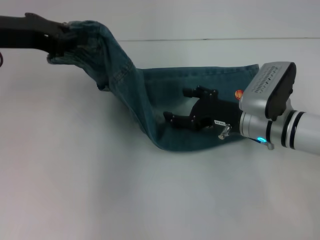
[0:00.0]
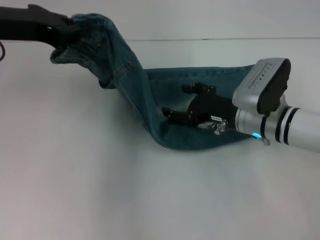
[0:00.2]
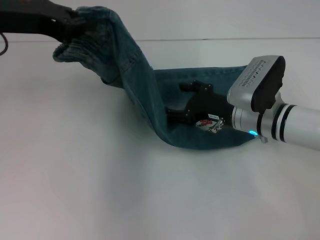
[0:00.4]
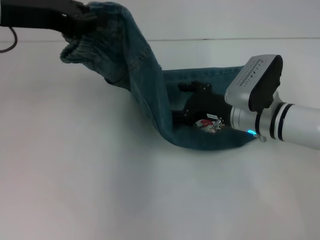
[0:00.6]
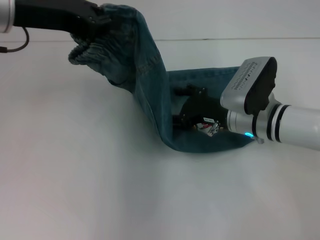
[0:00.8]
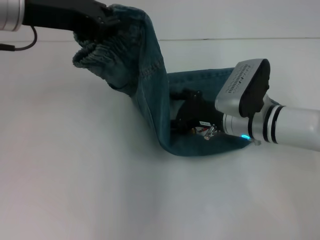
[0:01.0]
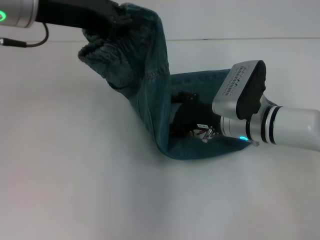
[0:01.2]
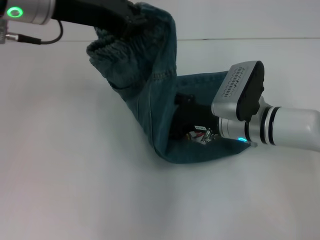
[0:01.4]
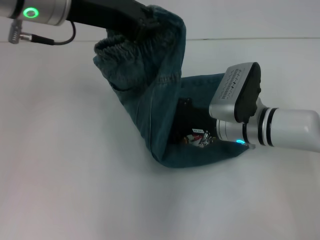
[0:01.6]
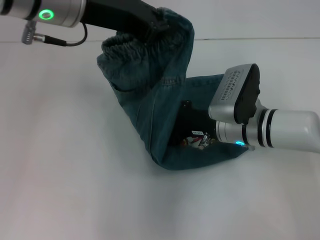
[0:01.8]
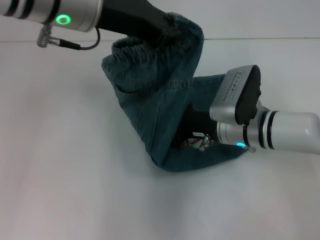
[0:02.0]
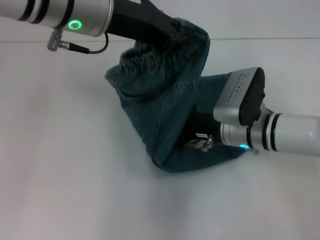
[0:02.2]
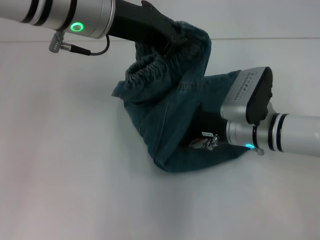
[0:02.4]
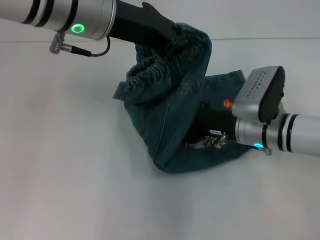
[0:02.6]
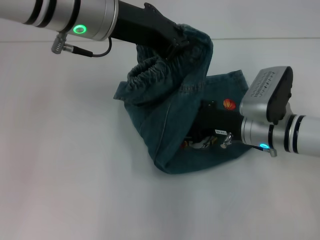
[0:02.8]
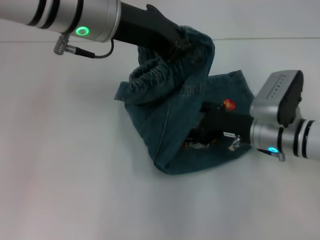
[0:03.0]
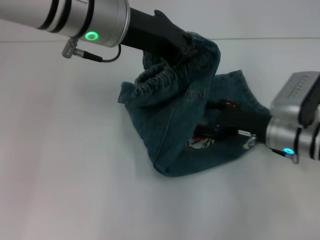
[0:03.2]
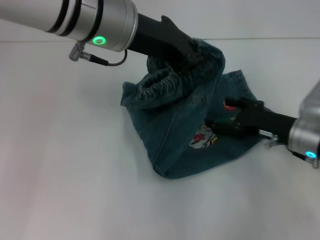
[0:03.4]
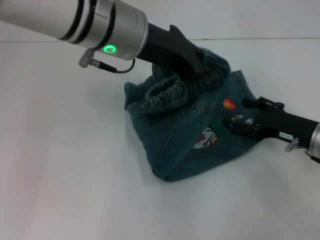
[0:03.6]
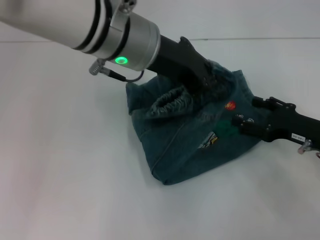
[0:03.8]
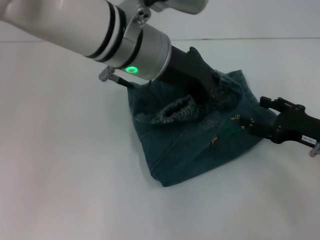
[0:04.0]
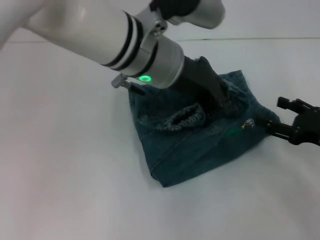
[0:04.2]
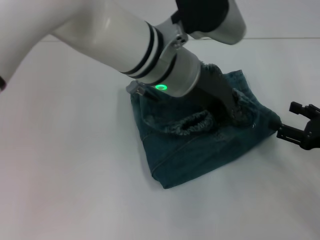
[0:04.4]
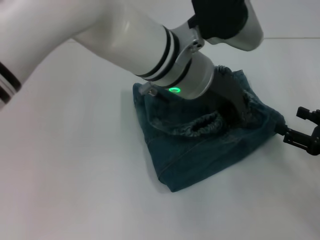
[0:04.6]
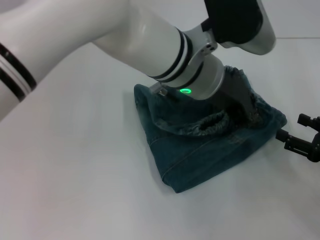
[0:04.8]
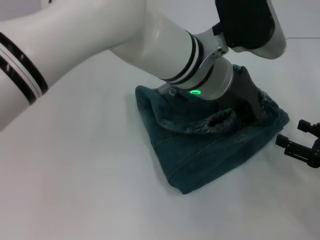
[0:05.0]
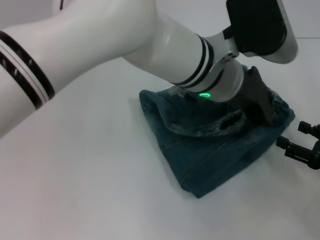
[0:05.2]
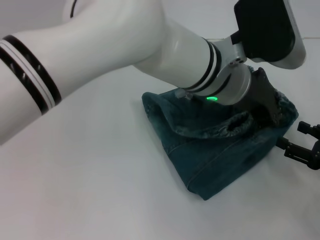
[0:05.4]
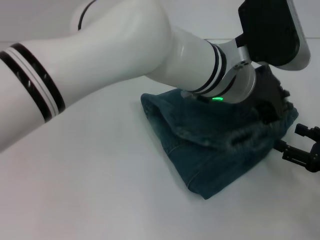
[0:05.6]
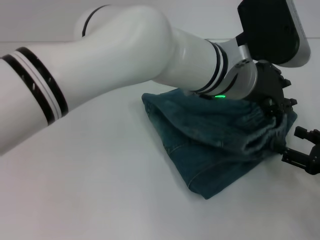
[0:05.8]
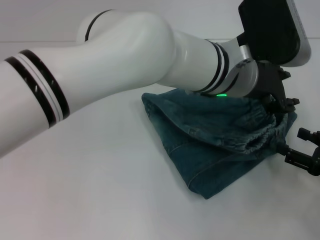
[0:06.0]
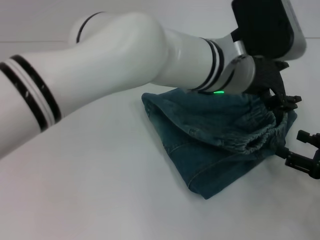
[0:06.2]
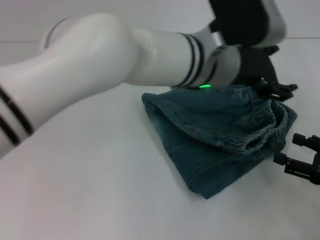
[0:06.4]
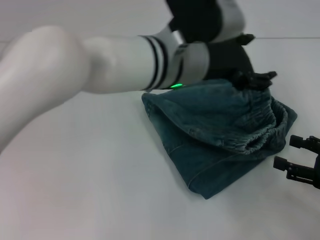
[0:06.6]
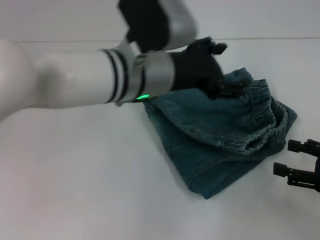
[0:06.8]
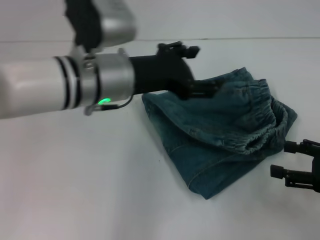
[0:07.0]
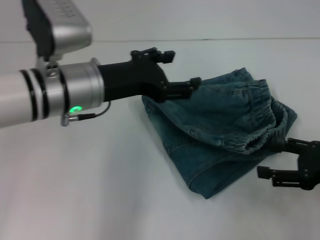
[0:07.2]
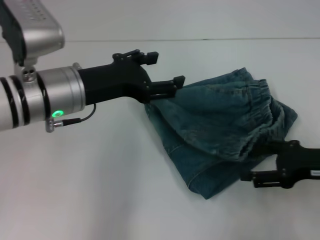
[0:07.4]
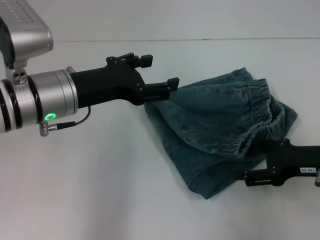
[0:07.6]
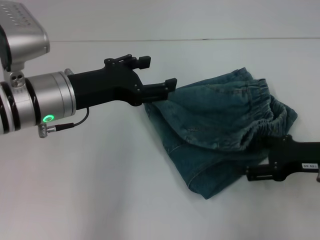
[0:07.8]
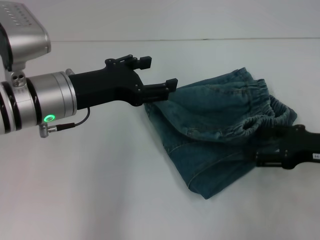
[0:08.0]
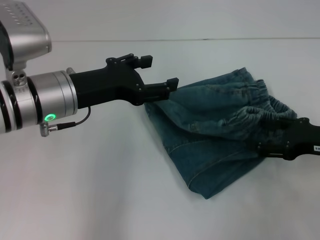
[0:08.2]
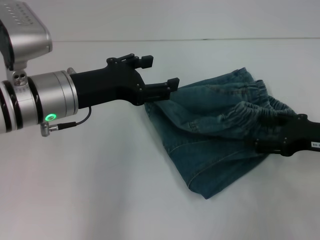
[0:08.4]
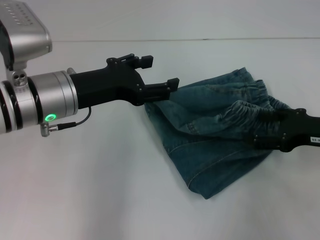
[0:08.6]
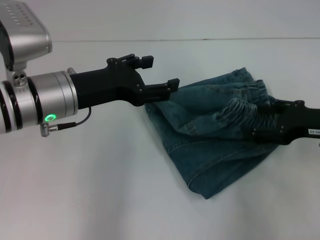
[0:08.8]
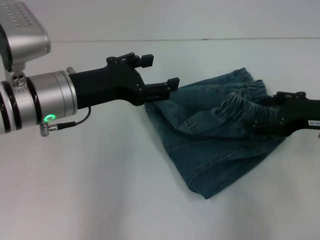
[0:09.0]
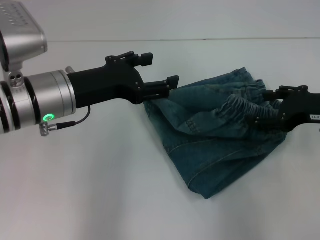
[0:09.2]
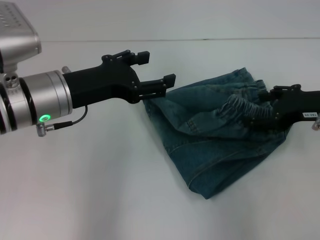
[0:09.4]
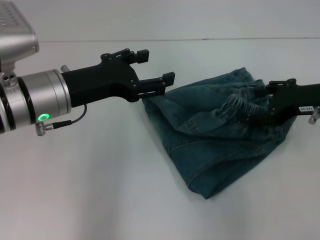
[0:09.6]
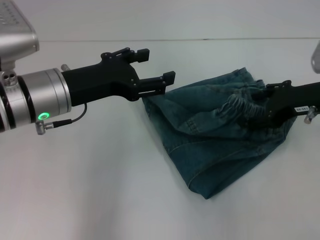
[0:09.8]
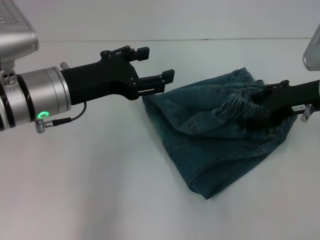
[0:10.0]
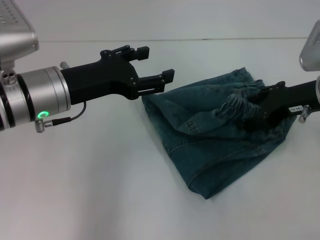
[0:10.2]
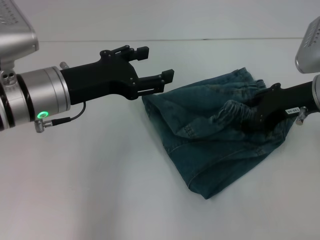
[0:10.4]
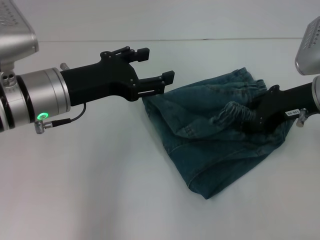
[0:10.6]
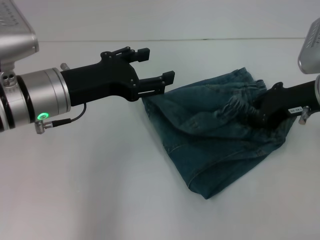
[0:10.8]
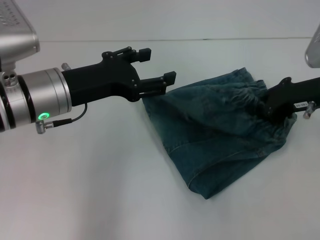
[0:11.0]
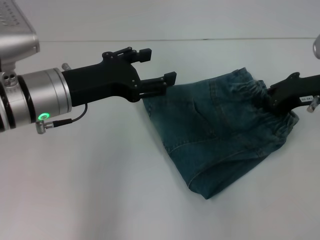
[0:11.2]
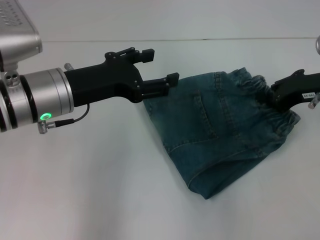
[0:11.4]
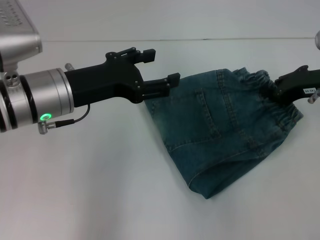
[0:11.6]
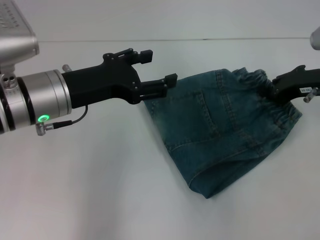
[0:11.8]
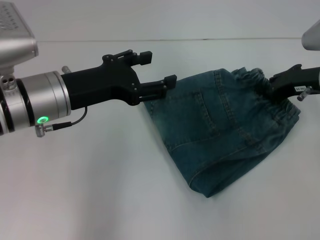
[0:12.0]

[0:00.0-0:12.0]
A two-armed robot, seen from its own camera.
Step, 0:00.0 to 0:02.8: Press the middle of the pants with your right hand.
Step, 0:03.0 to 0:06.0: Fold to the right with your left hand.
0:00.0 to 0:01.6: The left gripper shifts some 10 cm to the right.
0:01.6 to 0:03.0: The right gripper moves to the right, approximately 5 cm.
0:03.0 to 0:04.4: The left gripper heads to the right and downward, covering some 10 cm; the right gripper is displaced to the right and backward by approximately 15 cm.
0:04.4 to 0:06.0: The left gripper is displaced to the right by some 5 cm.
0:06.0 to 0:07.6: The left gripper heads to the left, covering some 20 cm, and opens. The right gripper goes about 10 cm to the left and forward.
0:07.6 to 0:09.0: The right gripper shifts by some 5 cm.
0:09.0 to 0:10.4: The right gripper moves about 5 cm.
0:10.4 to 0:12.0: The right gripper closes its fingers.

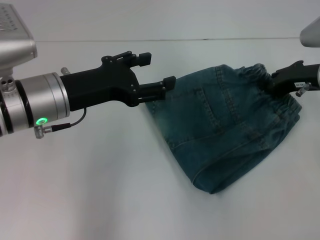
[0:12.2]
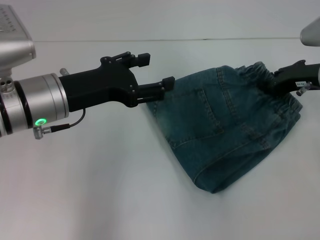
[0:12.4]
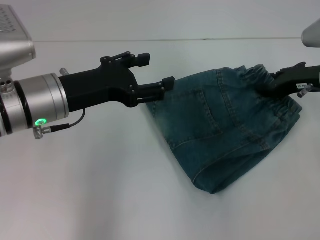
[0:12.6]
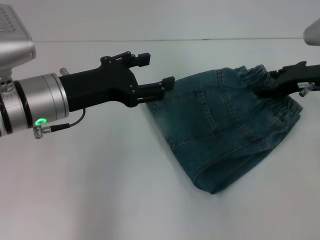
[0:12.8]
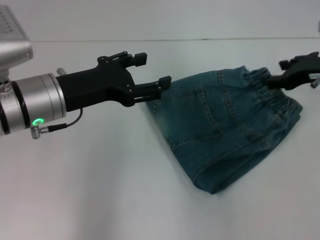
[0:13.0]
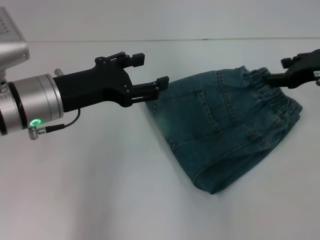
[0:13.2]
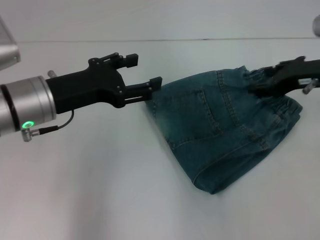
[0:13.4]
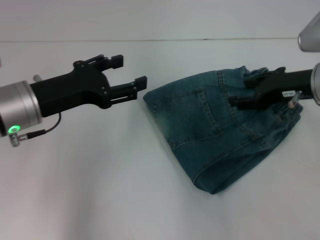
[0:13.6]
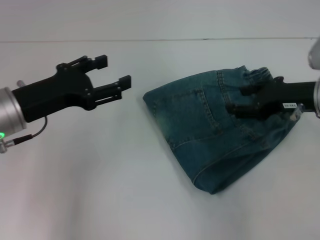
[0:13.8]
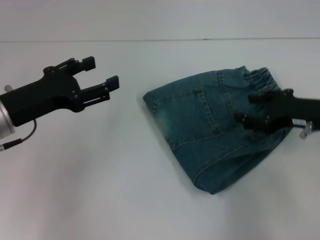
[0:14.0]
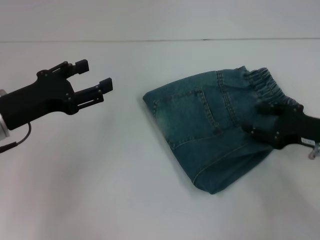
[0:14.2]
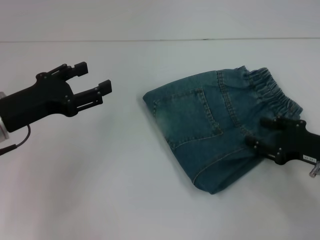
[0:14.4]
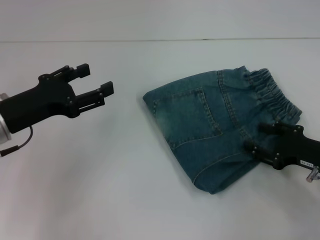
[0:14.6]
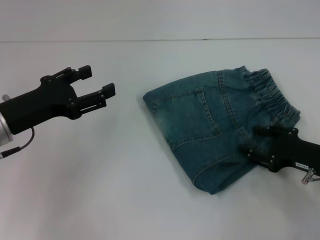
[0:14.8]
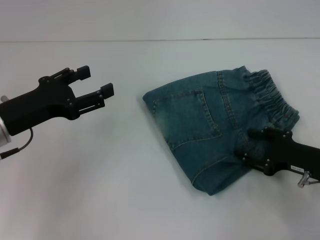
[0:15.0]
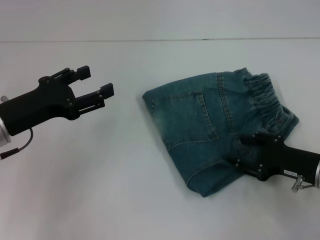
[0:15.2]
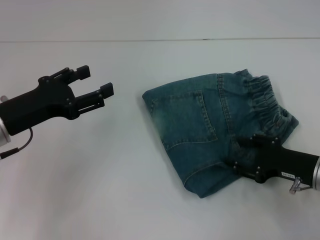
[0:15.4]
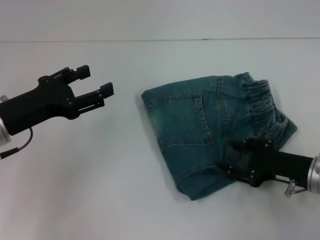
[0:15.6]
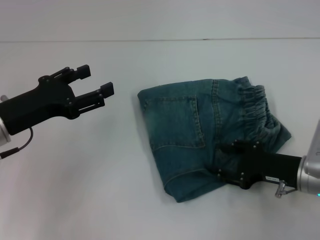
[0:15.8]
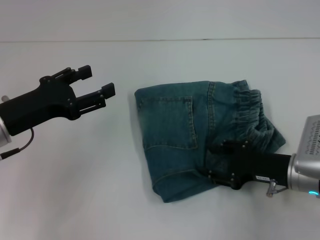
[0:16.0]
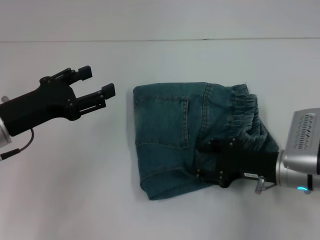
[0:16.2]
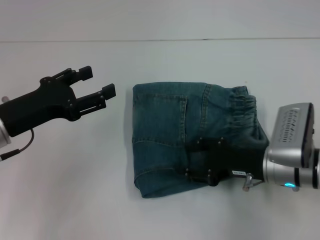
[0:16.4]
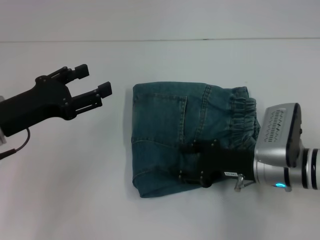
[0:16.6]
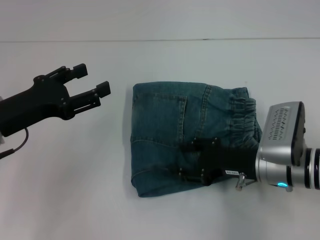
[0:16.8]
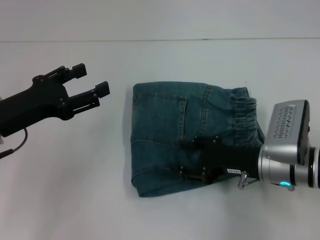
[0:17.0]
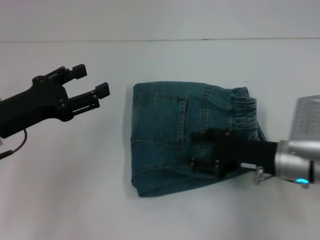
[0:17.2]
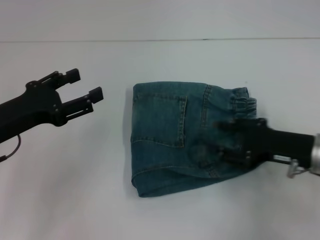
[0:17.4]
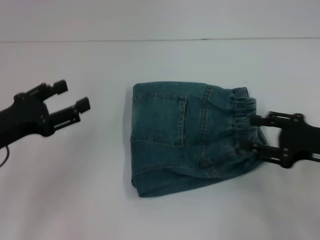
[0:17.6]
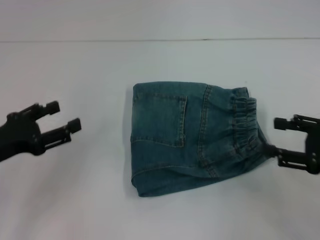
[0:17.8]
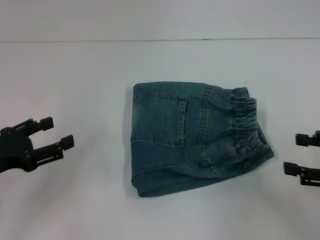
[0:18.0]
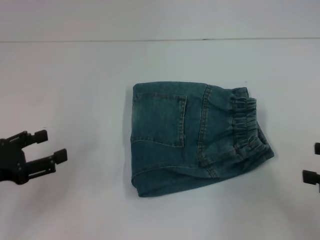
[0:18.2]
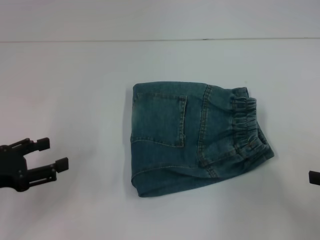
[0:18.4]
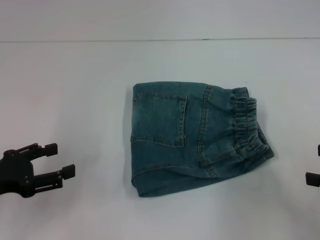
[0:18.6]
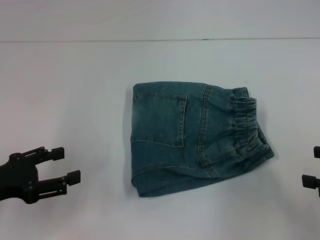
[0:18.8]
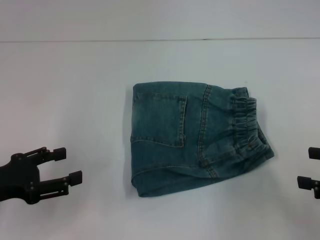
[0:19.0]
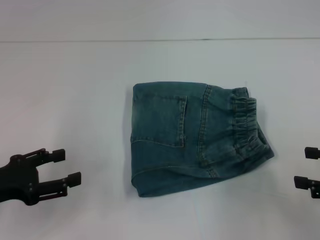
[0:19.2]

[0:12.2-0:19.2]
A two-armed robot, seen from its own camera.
0:12.2 to 0:13.6: The right gripper opens.
0:13.6 to 0:15.0: The left gripper changes place by some 5 cm; the right gripper heads downward and backward, covering roughly 15 cm.
0:15.0 to 0:16.4: The right gripper moves to the left, some 10 cm.
0:16.4 to 0:17.8: The left gripper ends up approximately 5 cm from where it was. Meanwhile the right gripper goes about 15 cm to the right and upward.

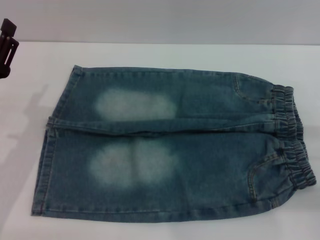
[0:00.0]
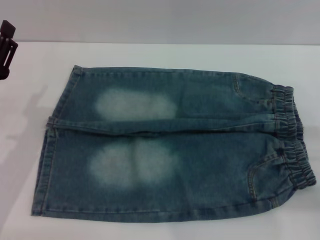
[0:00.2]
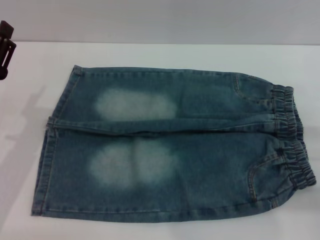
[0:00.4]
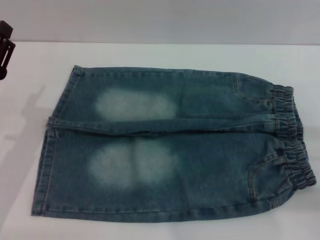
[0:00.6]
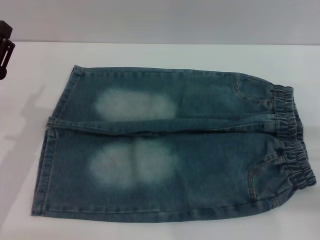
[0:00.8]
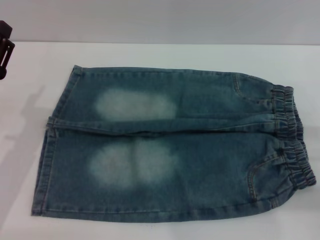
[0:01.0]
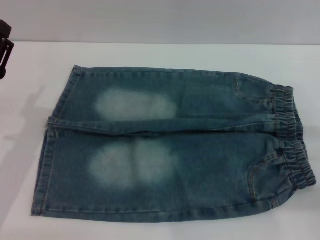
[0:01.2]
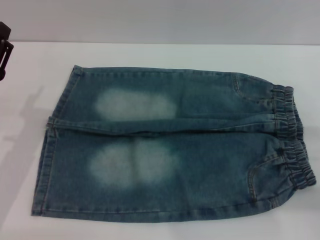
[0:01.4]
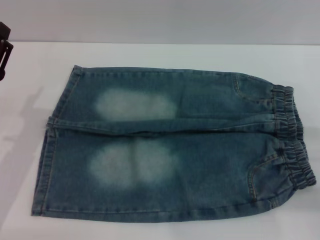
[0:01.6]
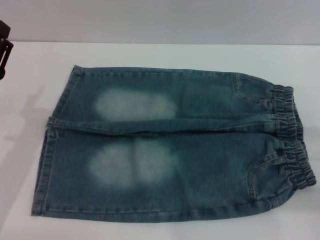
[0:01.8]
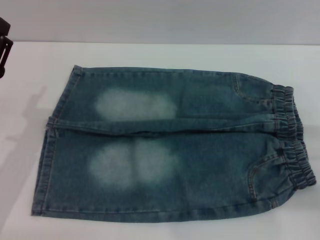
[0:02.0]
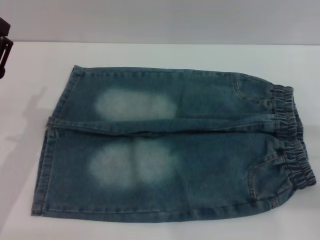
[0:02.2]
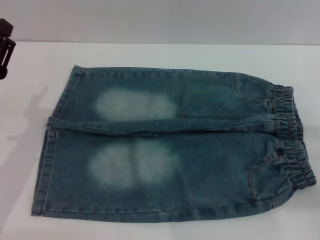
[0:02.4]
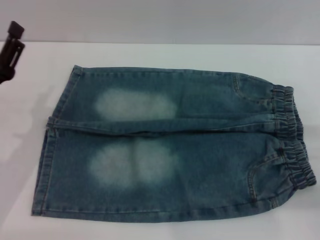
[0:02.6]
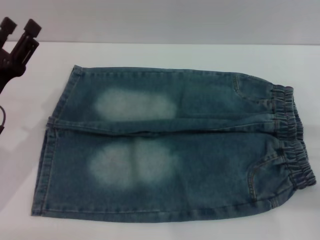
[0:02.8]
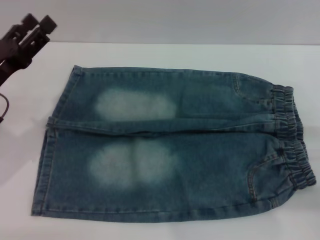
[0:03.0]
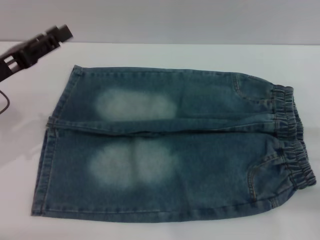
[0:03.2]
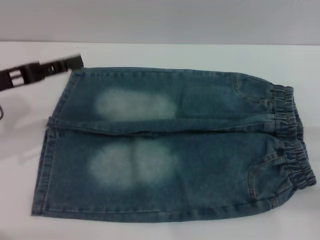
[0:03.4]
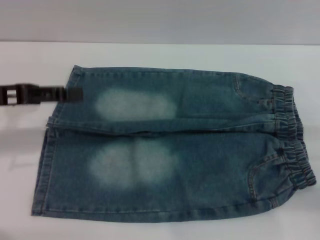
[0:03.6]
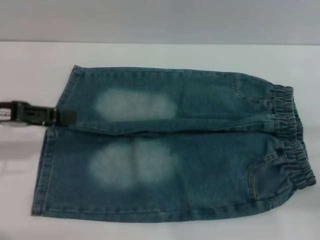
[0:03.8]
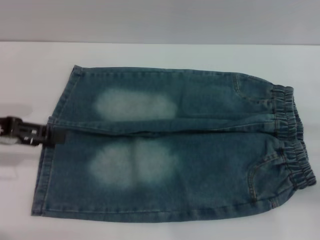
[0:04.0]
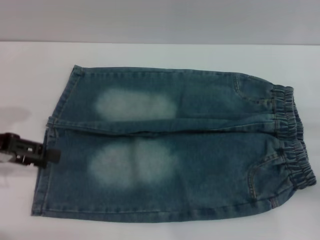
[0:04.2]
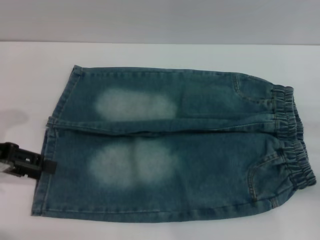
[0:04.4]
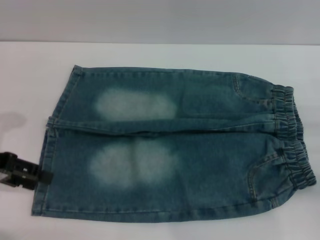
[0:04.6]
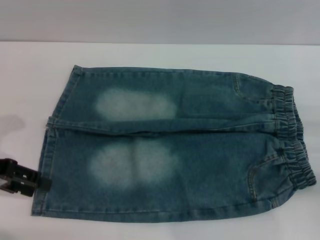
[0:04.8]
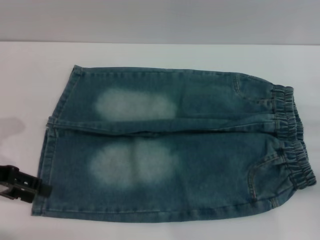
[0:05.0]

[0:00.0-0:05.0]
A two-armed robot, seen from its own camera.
0:00.0 to 0:01.6: Neither gripper changes place.
0:01.6 to 0:03.4: The left gripper moves upward and forward, some 10 cm.
